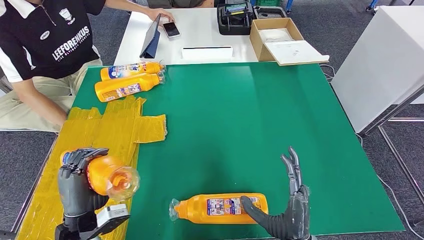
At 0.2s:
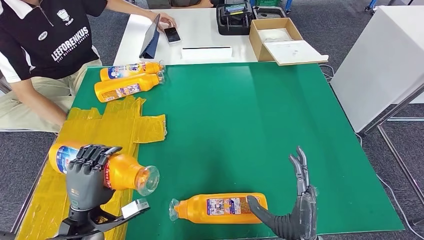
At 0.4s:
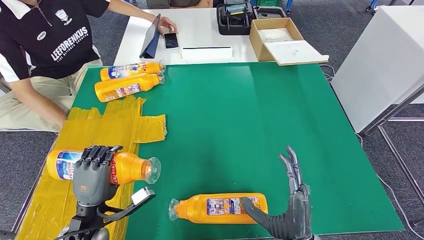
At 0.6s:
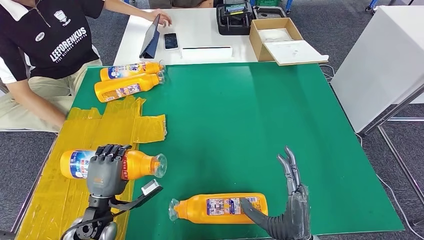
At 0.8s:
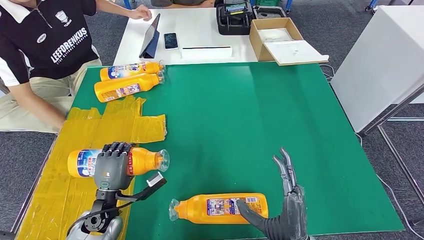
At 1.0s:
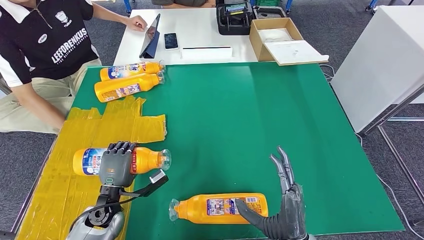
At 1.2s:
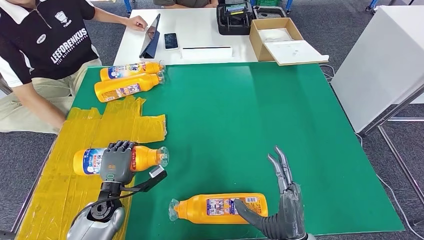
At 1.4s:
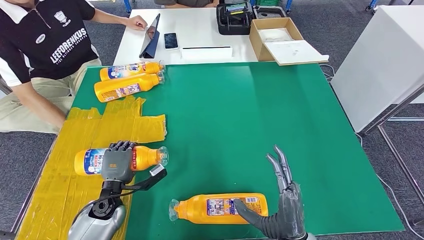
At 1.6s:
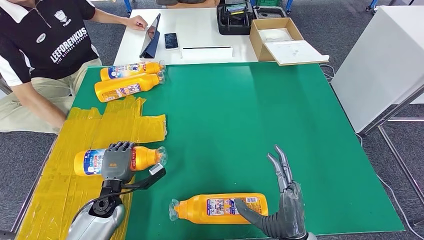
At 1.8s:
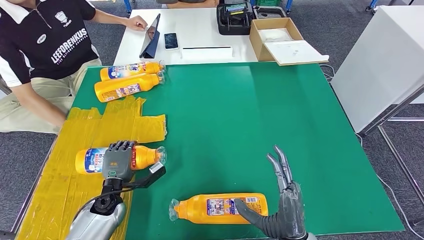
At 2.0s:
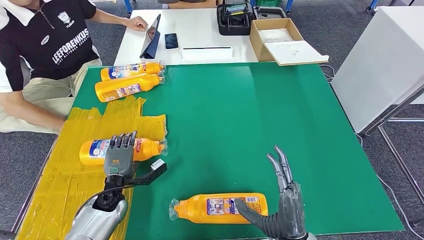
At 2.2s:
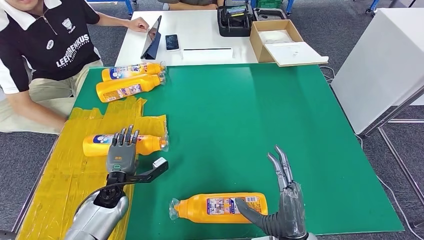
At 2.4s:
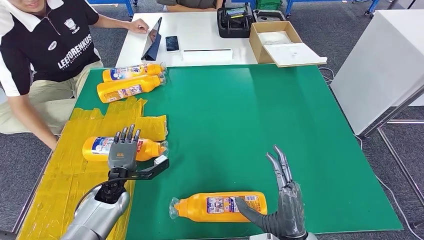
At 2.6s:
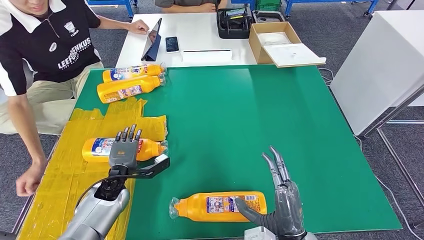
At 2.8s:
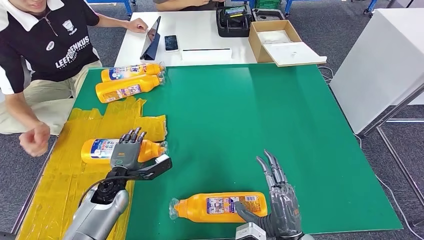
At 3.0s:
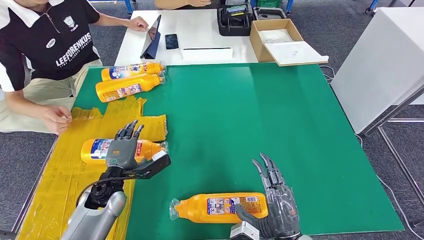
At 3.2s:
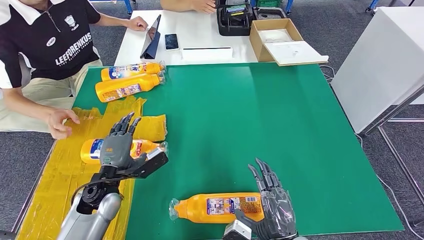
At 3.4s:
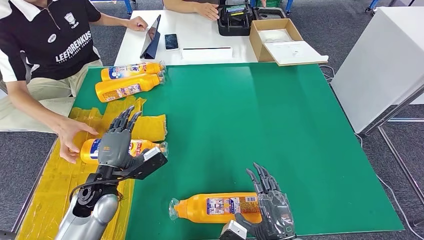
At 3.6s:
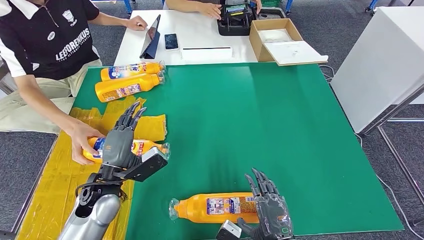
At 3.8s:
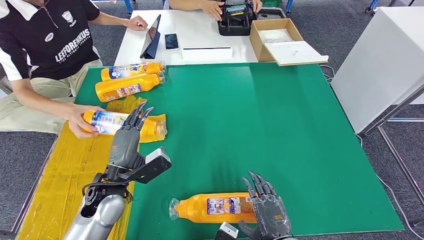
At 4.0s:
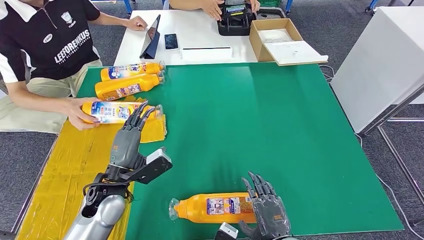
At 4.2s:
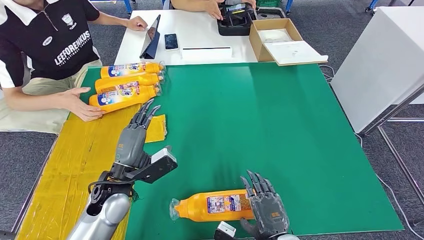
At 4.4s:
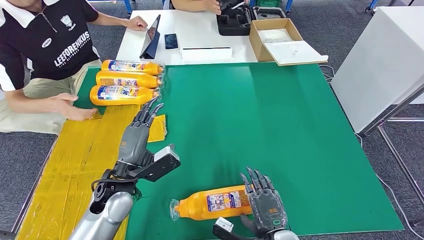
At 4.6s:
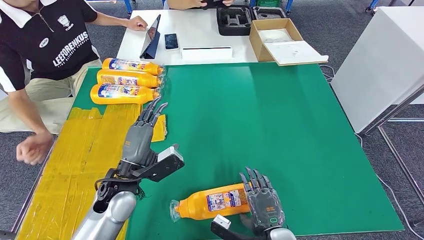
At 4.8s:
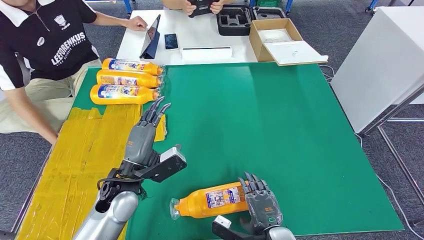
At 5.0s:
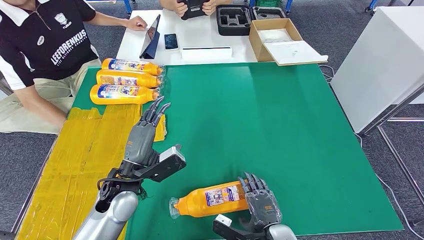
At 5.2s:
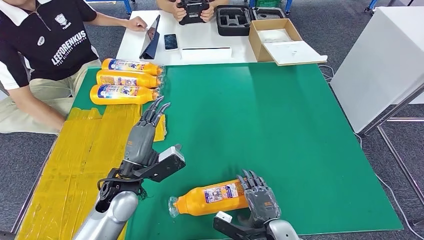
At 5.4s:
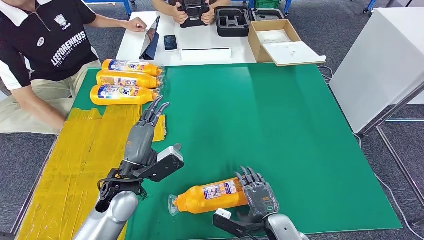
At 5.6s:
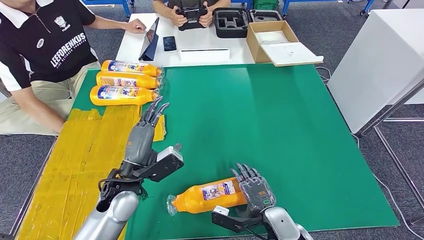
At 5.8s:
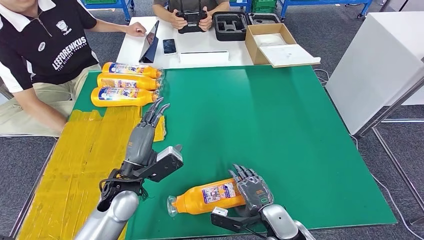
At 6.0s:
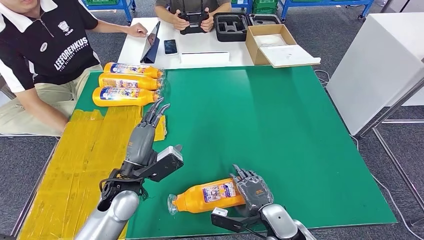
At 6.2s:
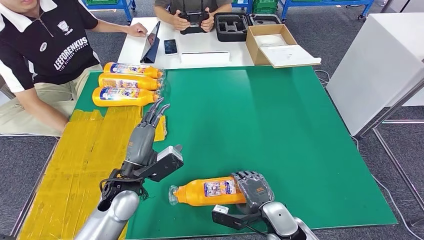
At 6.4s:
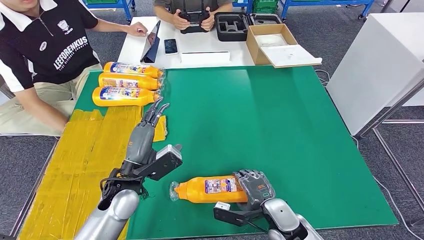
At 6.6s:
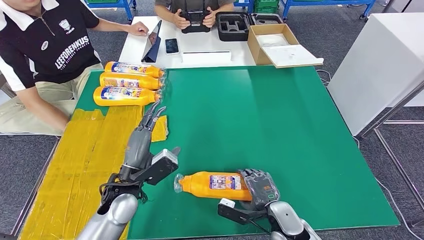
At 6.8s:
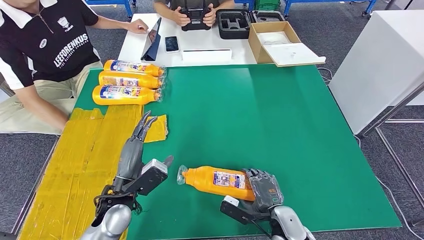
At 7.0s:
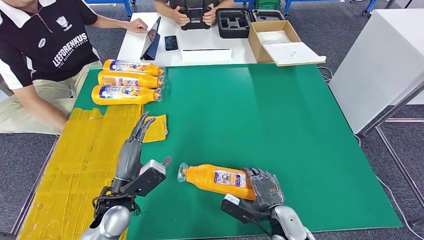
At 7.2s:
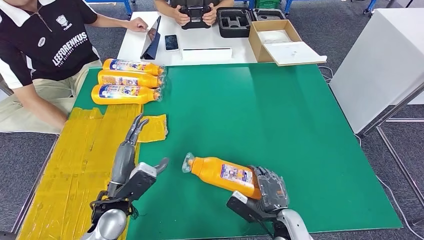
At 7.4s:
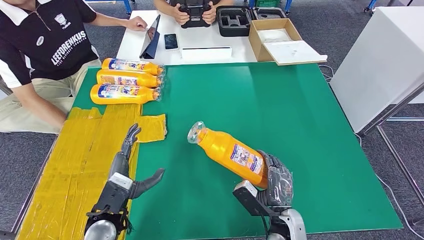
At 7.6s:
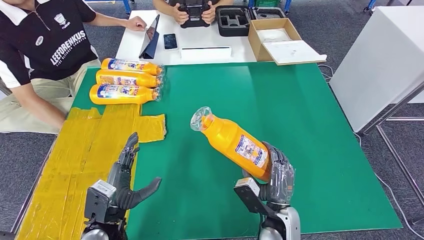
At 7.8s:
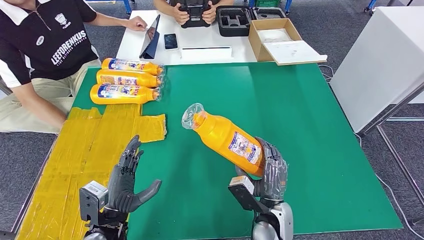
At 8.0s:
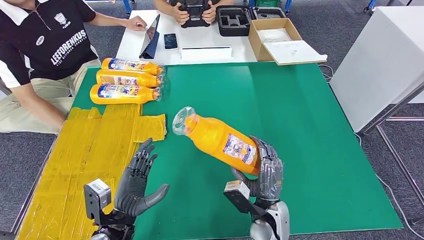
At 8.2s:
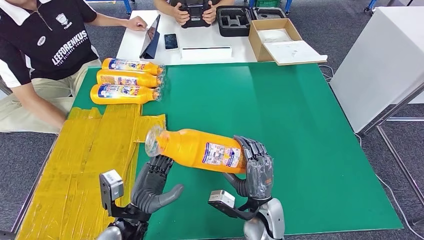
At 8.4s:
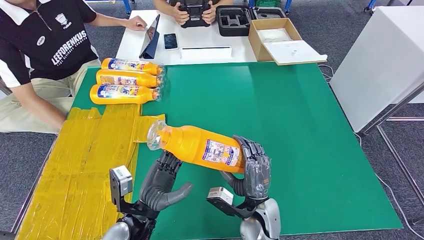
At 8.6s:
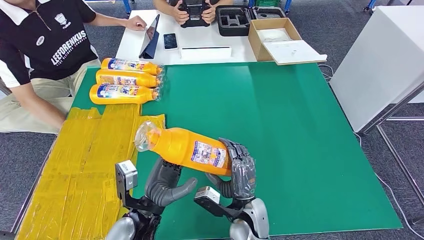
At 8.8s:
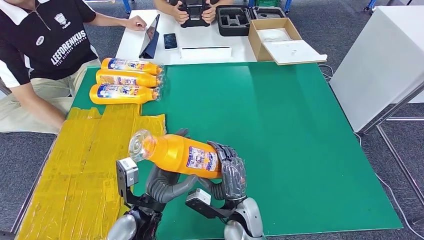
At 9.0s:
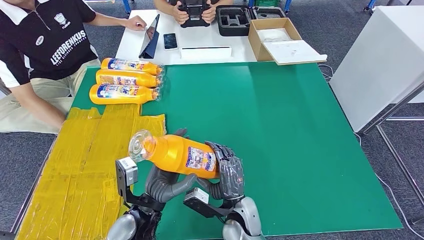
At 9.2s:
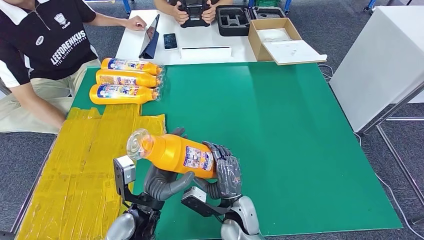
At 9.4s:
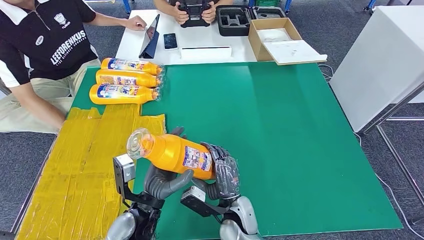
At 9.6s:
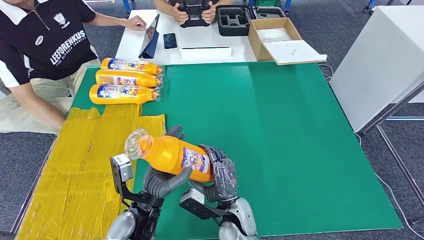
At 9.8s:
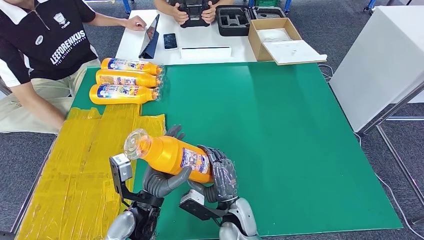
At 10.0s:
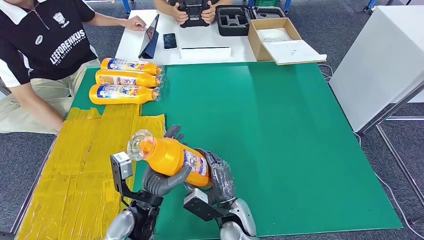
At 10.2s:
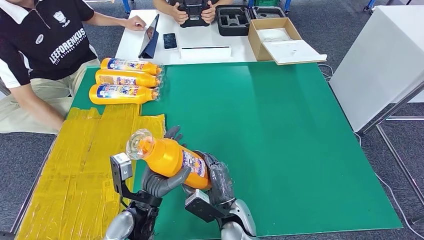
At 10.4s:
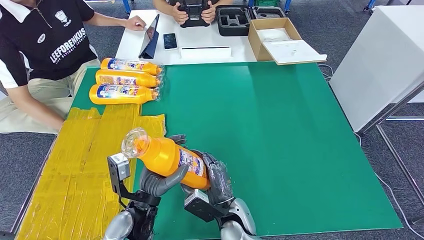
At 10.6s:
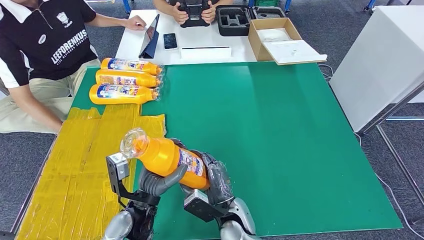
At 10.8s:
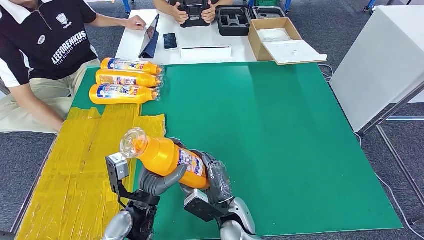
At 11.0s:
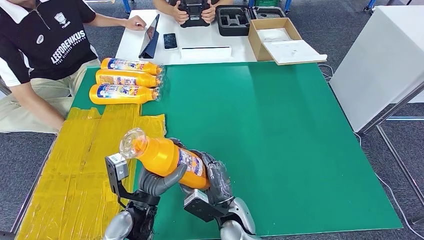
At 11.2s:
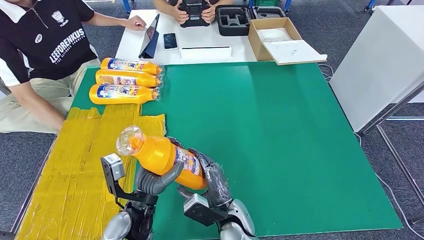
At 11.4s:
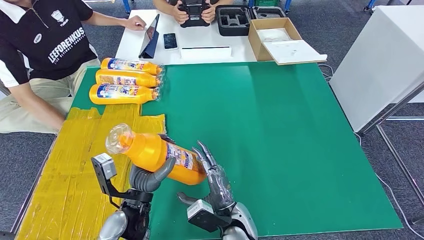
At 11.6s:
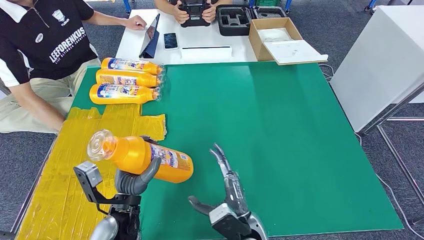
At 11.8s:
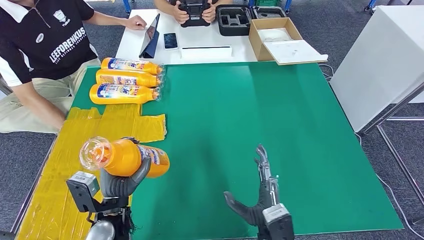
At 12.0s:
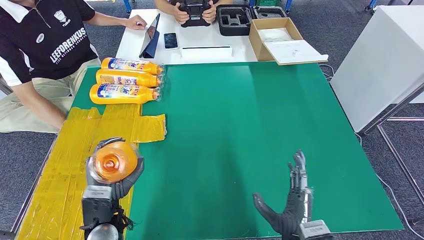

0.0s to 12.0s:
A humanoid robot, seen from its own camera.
Step, 0.0s to 2.8s: Flip the bottle to face forward.
Step, 6.0s to 10.0s: Pick up the bottle from the table.
0.0s to 1.6s: The left hand heads forward and downward, covering some 15 cm.
1.6s to 3.0s: The left hand heads upward, covering approximately 5 cm.
3.0s to 4.4s: The left hand moves upward and to the right, some 10 cm.
7.6s to 9.0s: The left hand shifts approximately 10 cm to the right. Meanwhile the right hand travels to the left by approximately 10 cm.
10.4s to 12.0s: The right hand moves to the right and backward, approximately 15 cm; the left hand is displaced to the left by some 5 cm.

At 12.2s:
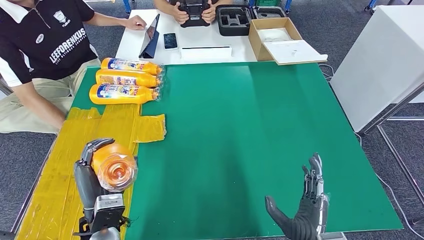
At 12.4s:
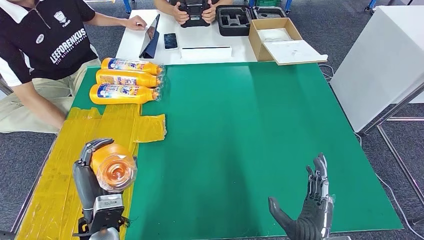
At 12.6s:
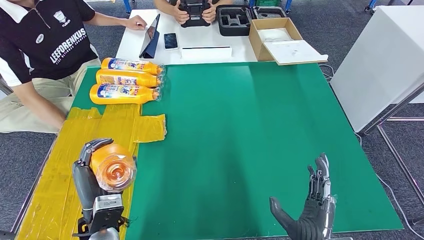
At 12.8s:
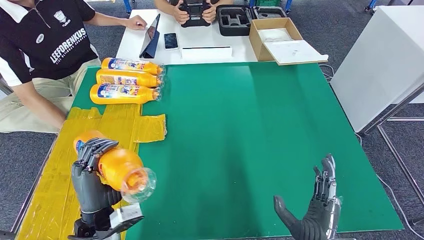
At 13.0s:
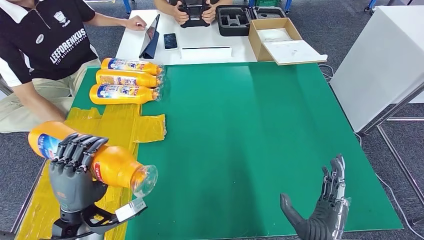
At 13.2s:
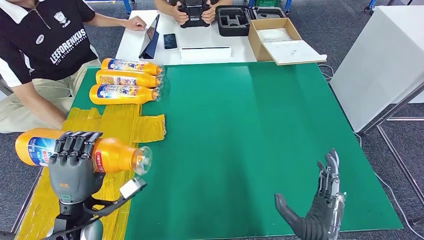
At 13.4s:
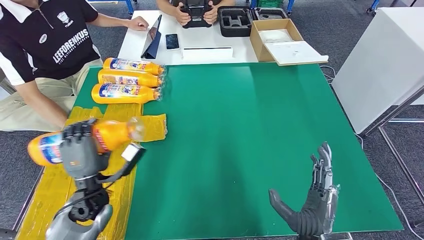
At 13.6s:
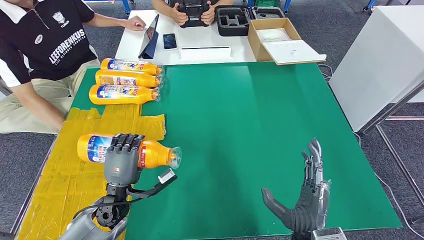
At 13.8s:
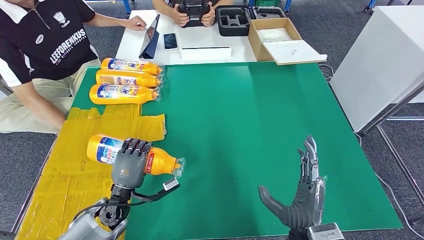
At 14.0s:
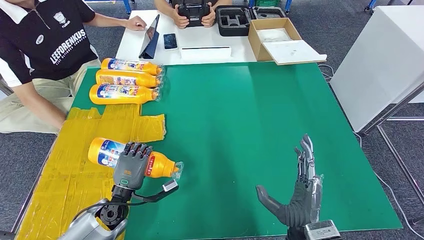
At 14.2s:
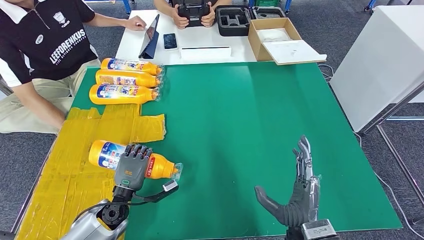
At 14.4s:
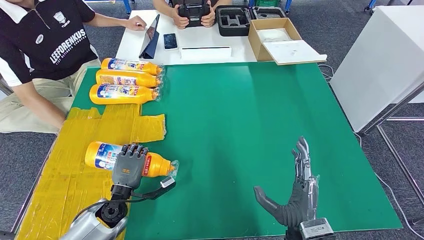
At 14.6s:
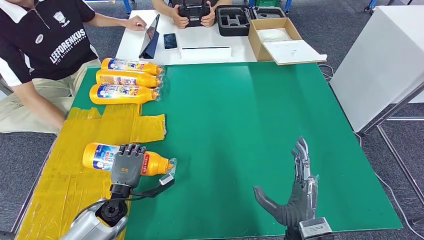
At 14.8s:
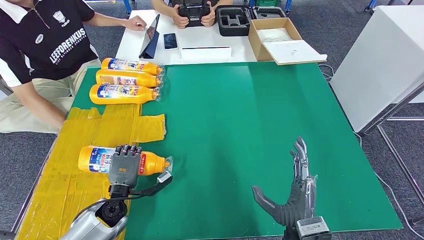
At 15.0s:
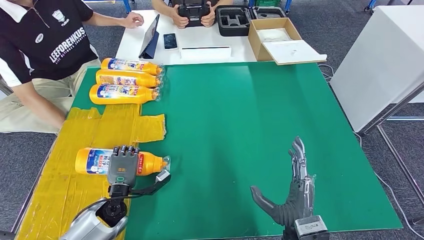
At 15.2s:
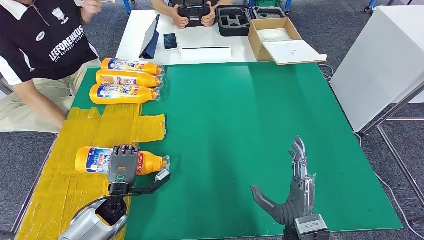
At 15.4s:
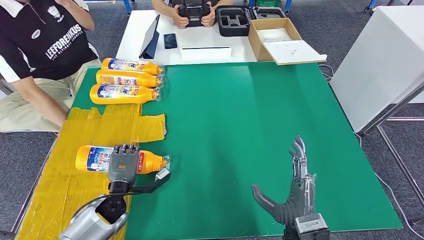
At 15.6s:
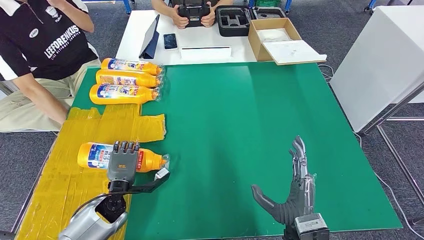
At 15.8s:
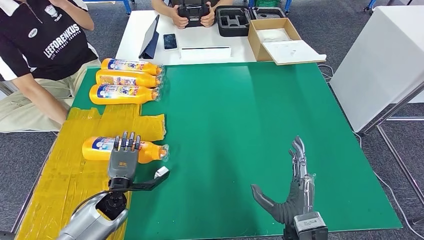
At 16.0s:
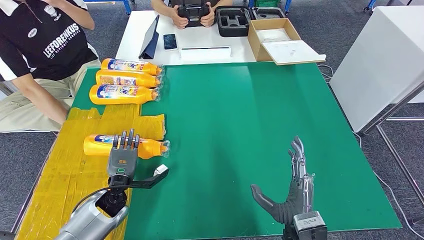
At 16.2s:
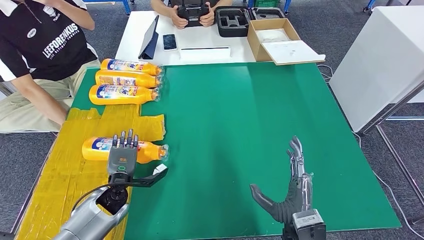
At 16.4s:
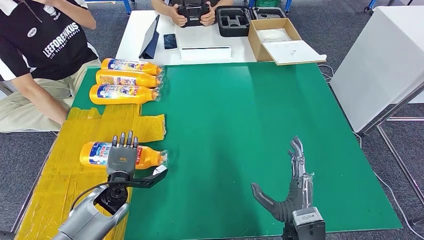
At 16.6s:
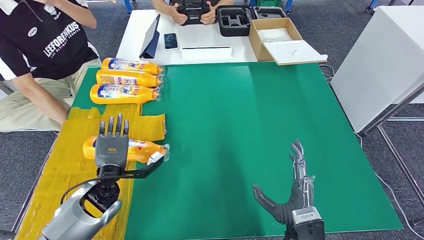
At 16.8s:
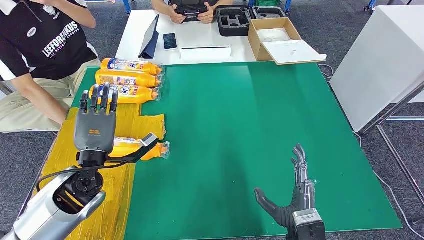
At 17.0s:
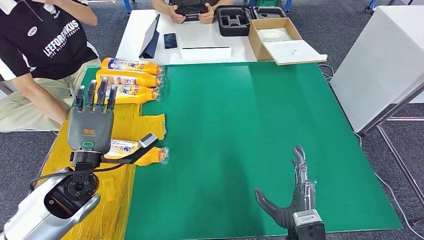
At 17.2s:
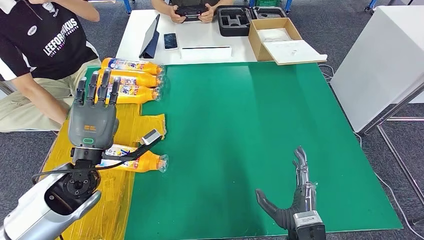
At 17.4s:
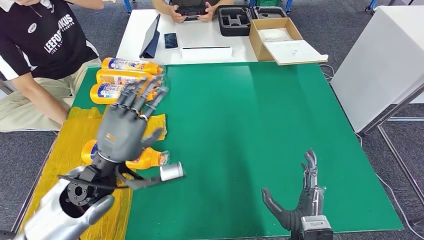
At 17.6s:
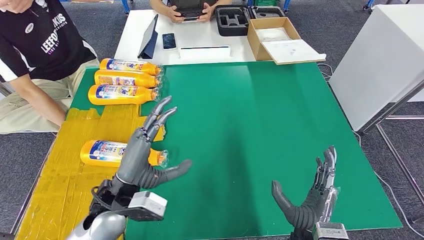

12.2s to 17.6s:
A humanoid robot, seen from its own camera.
12.2s to 13.6s: The left hand is displaced forward by about 5 cm.
13.6s to 15.0s: The left hand moves some 5 cm.
15.0s to 16.2s: The hands move only a little.
16.2s to 17.6s: The left hand shifts roughly 20 cm upward and to the right.
